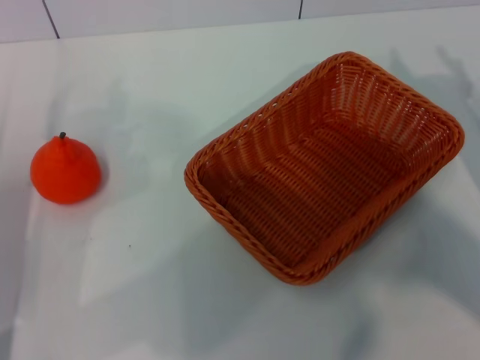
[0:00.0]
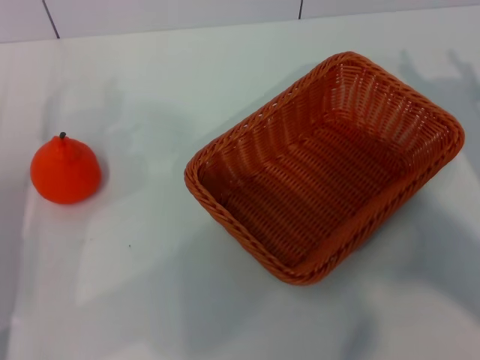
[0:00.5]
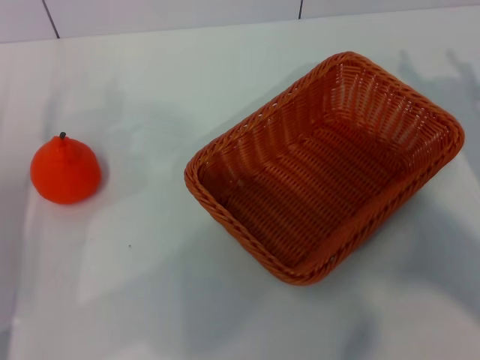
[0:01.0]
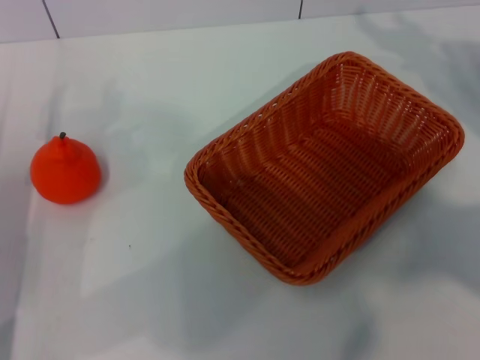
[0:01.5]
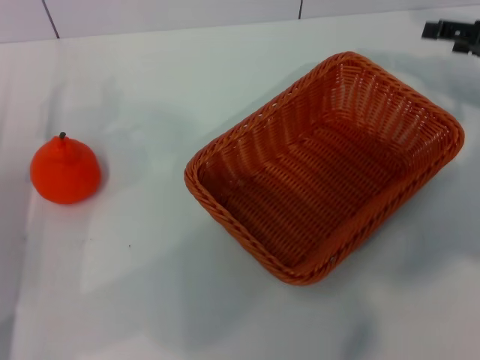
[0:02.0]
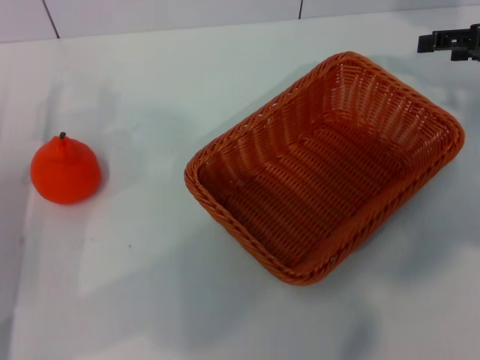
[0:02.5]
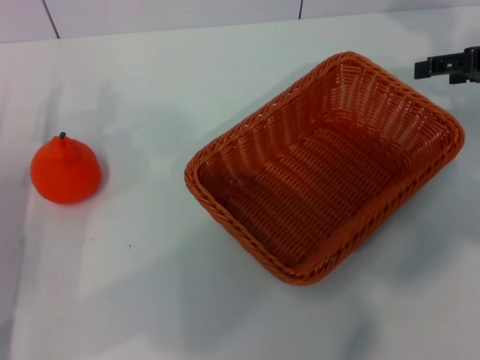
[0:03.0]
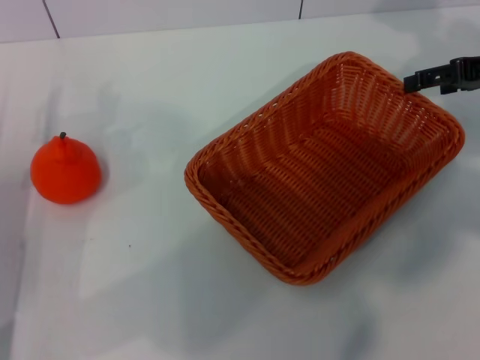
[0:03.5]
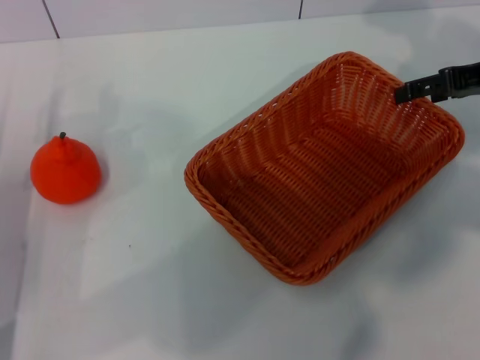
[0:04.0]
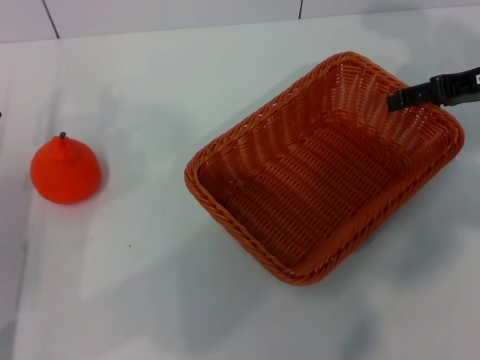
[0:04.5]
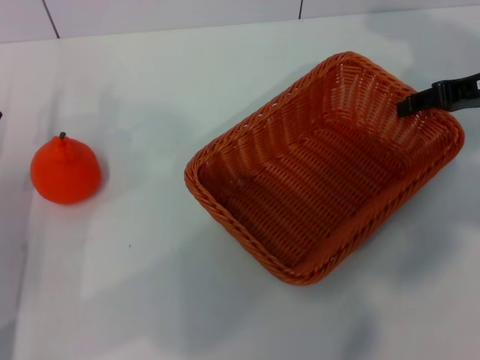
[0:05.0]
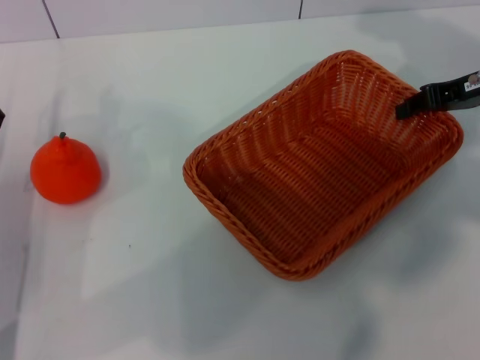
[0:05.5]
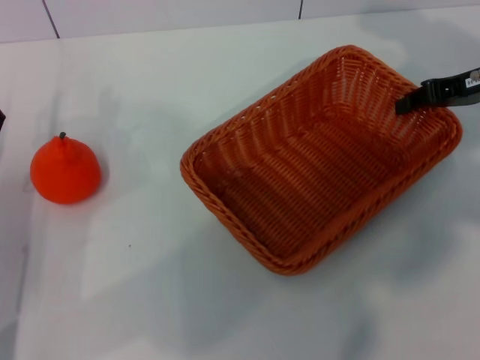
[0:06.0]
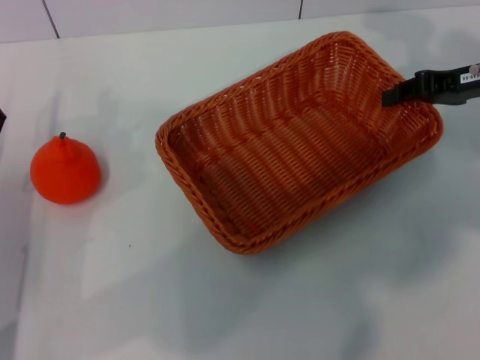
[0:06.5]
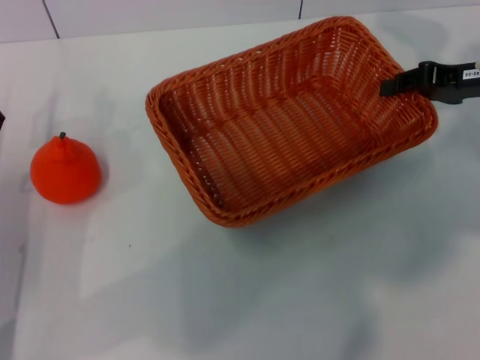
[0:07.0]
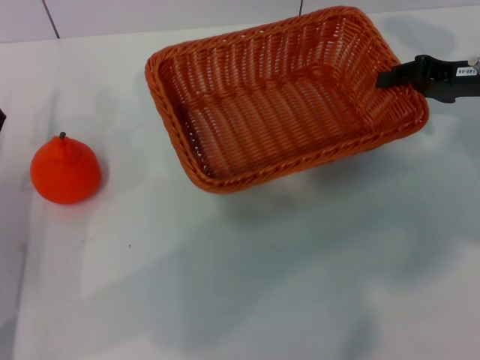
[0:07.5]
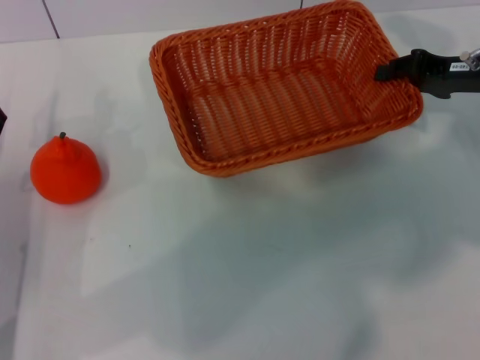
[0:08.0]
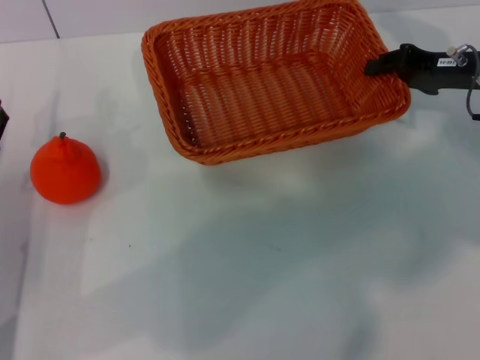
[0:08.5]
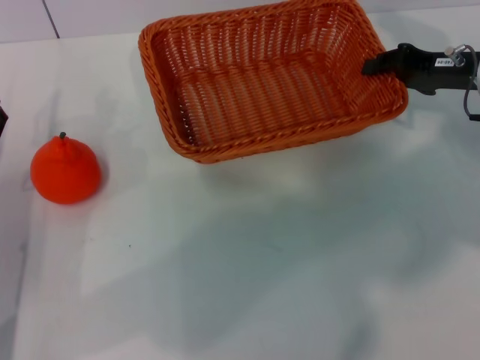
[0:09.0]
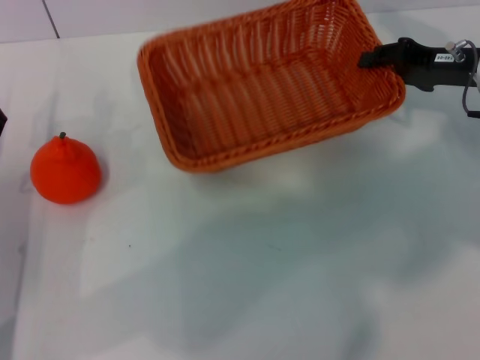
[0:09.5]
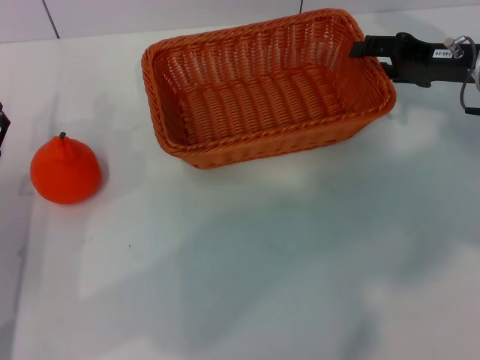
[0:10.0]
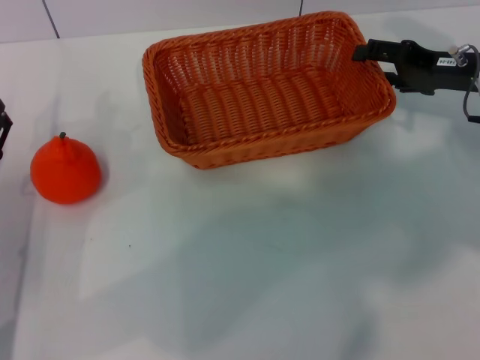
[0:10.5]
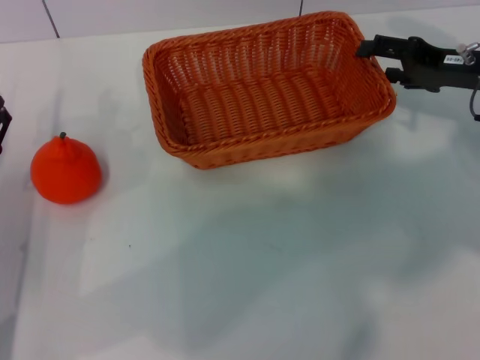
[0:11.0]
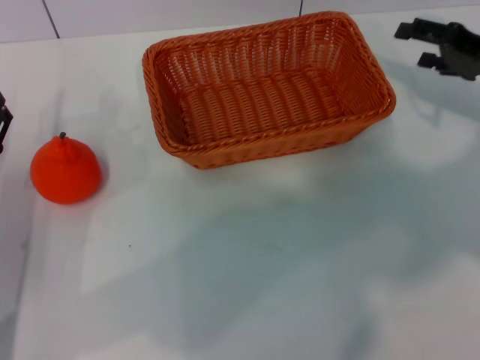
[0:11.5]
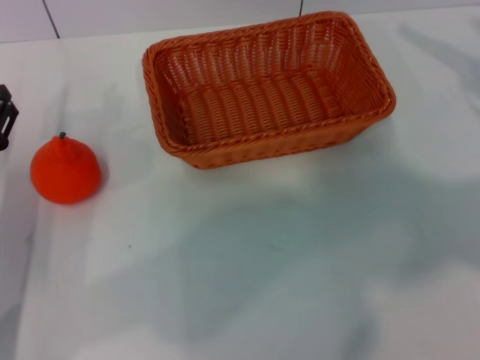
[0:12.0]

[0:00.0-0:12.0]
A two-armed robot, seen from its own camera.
Task of the whole recording: the right gripper pick up the yellow basket and place it horizontally in the middle of the table, the left gripper pick up the orange and place it into the yellow basket.
Step, 0:00.0 to 0:06.0: Pick up the light basket with the right gripper.
Step, 0:06.5 to 0:10.5: Place the light basket in the center of view with the right gripper.
0:00.0 to 0:02.0: The right gripper moves forward and upward, some 15 cm.
0:04.0 to 0:06.0: The right gripper closes.
0:08.0 to 0:10.0: There are only small adjustments of the grippers.
0:10.0 to 0:12.0: The right gripper travels to the right by some 10 cm, and opens up.

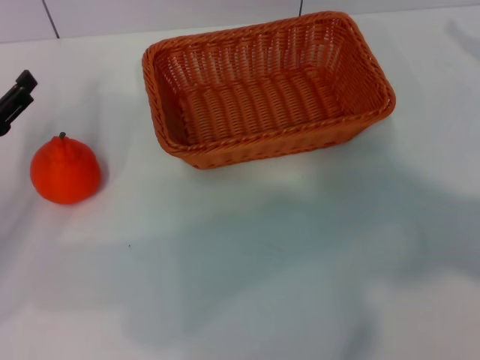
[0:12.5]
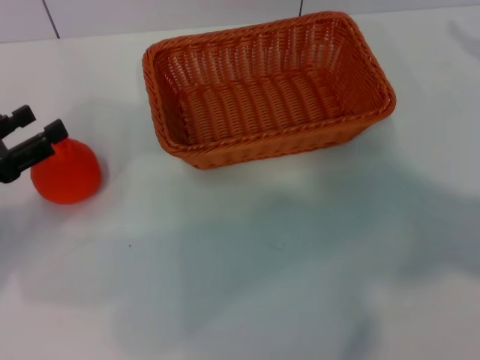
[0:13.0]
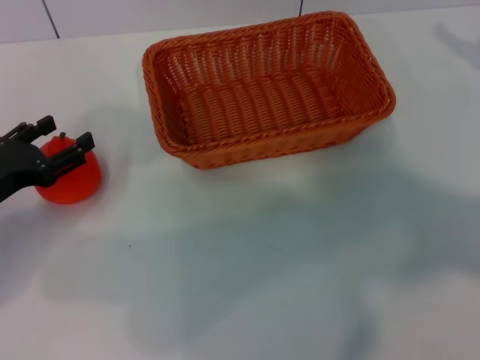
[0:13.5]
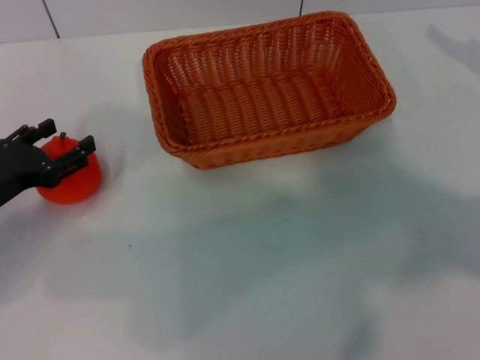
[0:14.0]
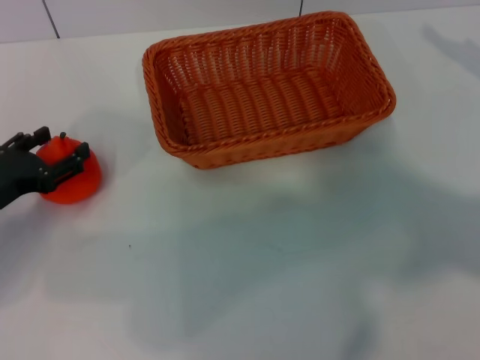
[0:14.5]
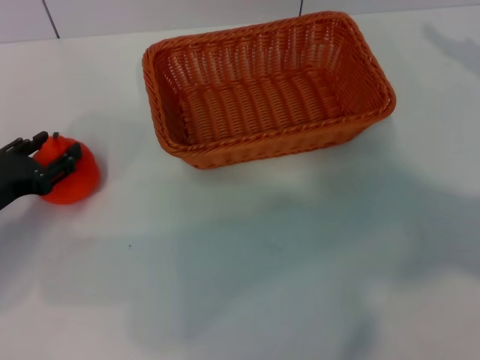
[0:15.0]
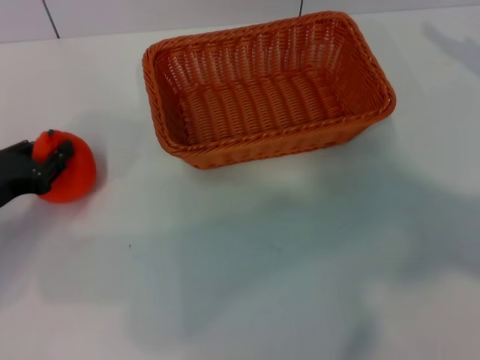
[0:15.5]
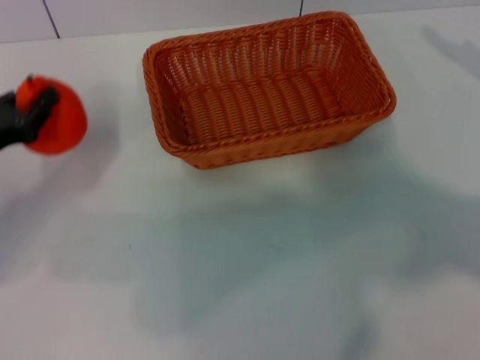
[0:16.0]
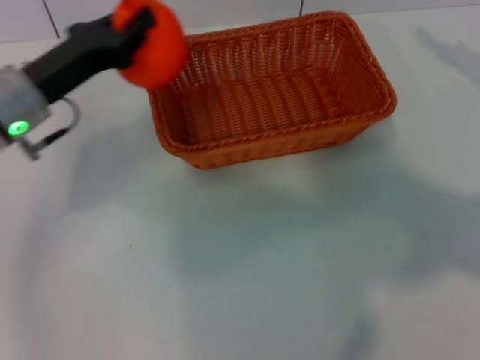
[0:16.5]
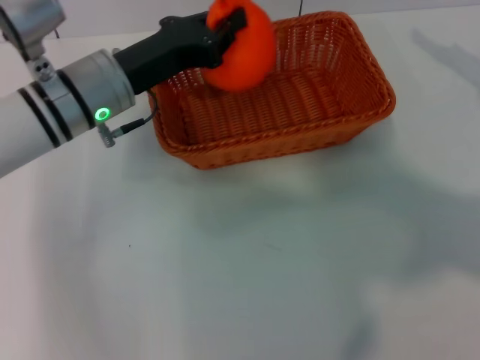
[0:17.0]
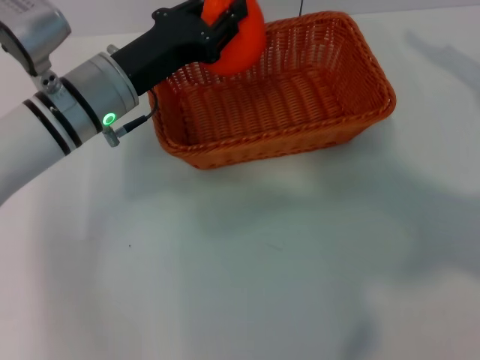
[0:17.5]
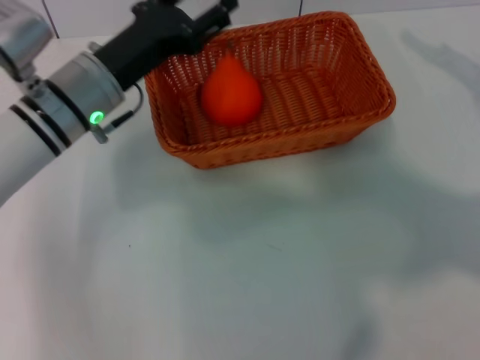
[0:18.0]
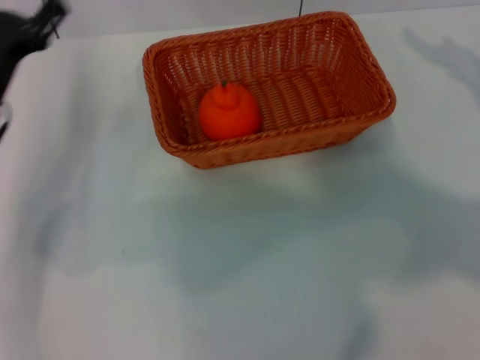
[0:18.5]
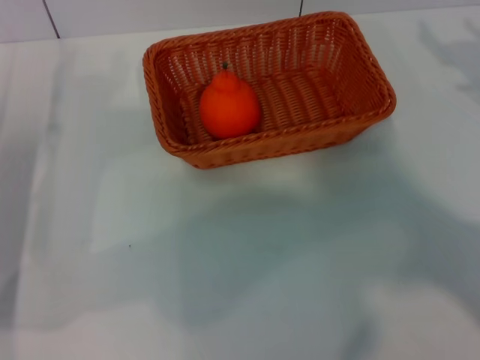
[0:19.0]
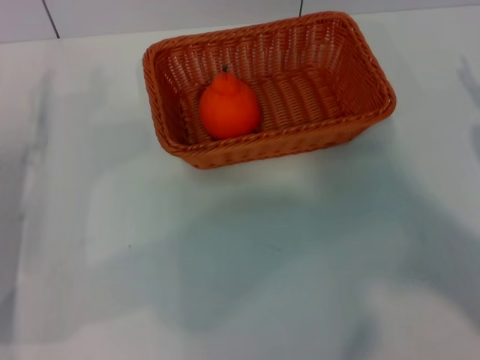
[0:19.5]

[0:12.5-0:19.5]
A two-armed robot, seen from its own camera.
Task of the whole recording: the right gripper pick up the yellow basket and place it horizontally in the middle of the table, the left gripper pick up the orange and place it into the yellow basket.
Step, 0:12.5 to 0:15.5: Pick up the orange with the left gripper.
Step, 0:16.0 to 0:17.5: Place the orange into the light basket with the left gripper.
0:14.5 to 0:16.0: The left gripper closes.
0:16.0 to 0:17.5: The left gripper travels to the right by approximately 15 cm.
0:17.5 to 0:19.5: The right gripper shifts roughly 10 cm downward and backward. Meanwhile the left gripper travels to the left, backward and downward by some 20 cm, and opens up.
